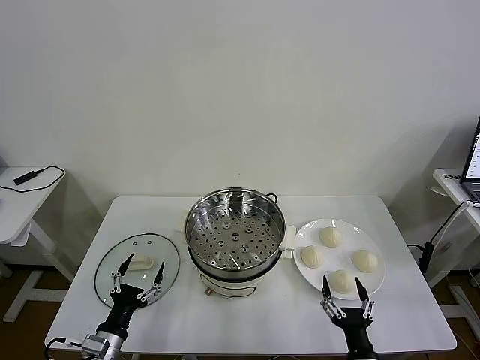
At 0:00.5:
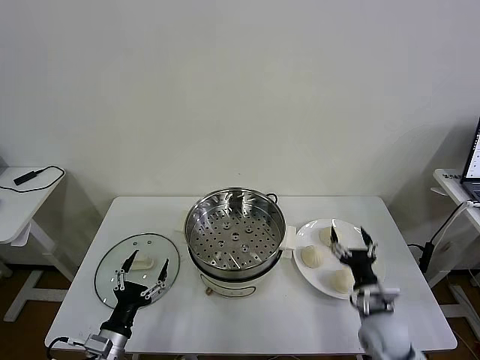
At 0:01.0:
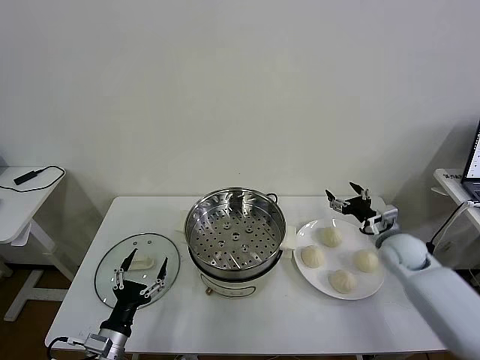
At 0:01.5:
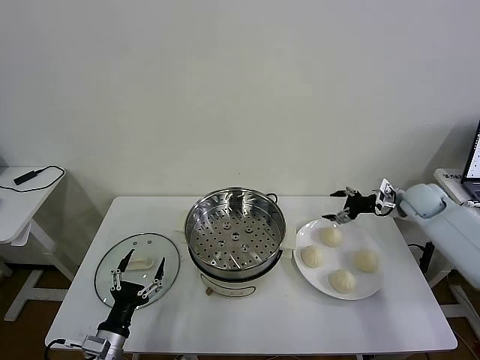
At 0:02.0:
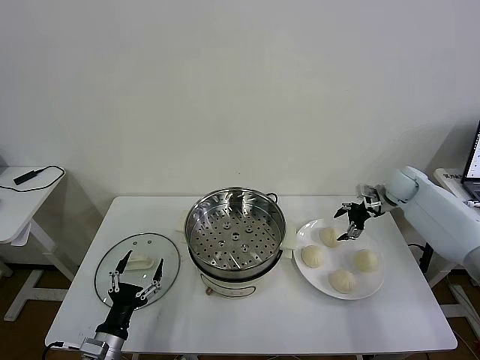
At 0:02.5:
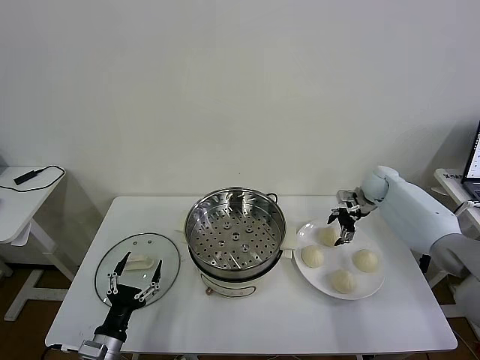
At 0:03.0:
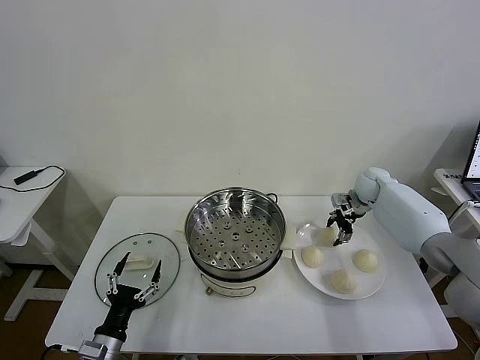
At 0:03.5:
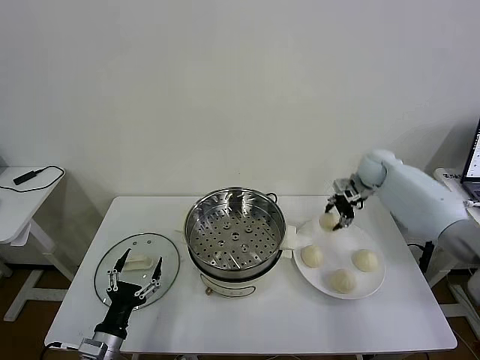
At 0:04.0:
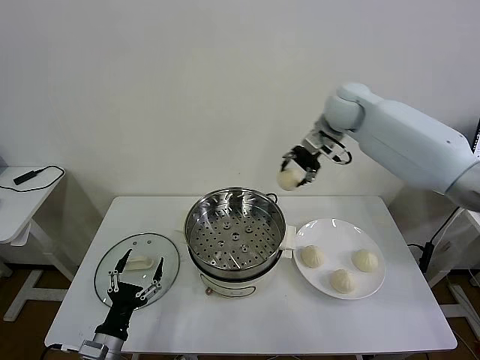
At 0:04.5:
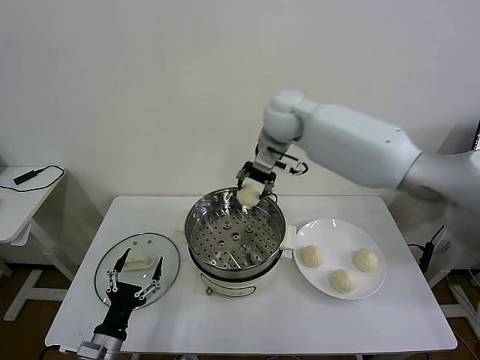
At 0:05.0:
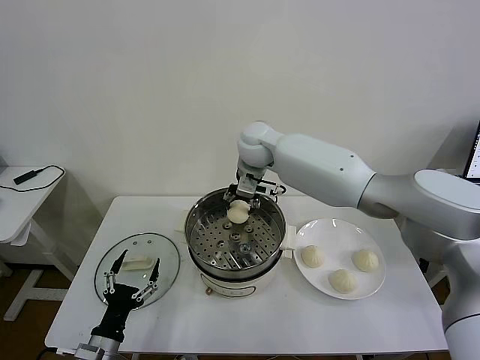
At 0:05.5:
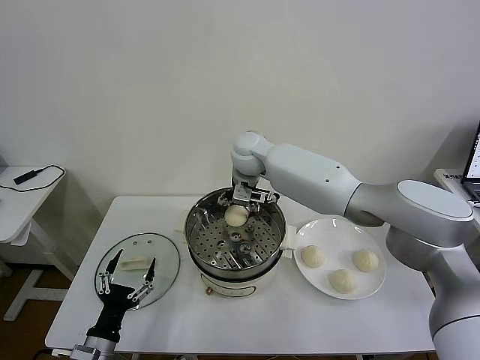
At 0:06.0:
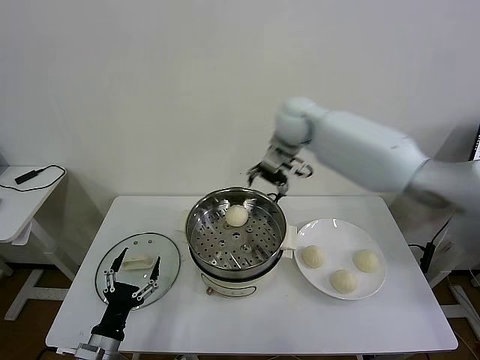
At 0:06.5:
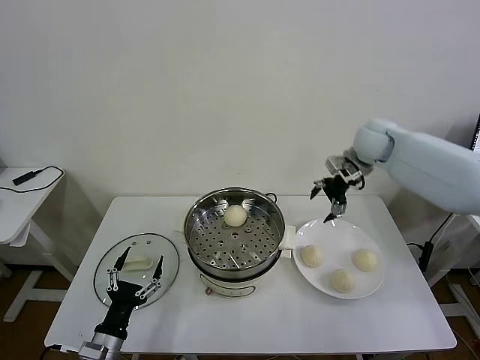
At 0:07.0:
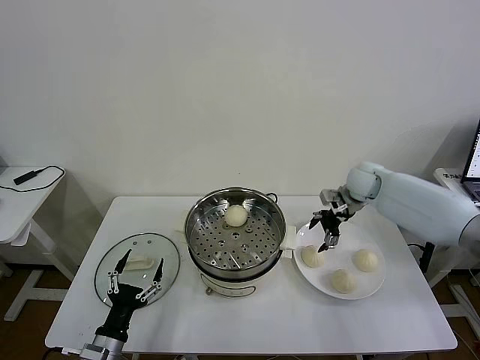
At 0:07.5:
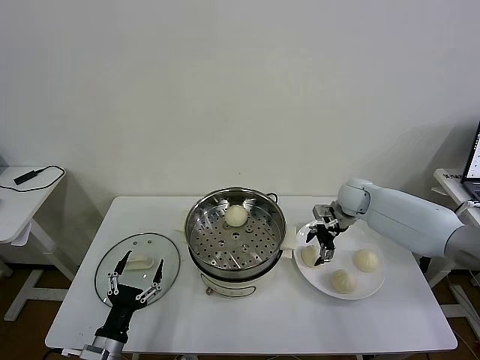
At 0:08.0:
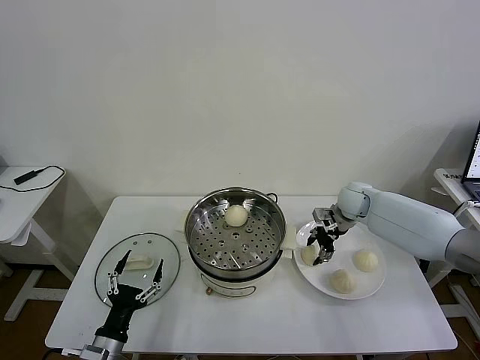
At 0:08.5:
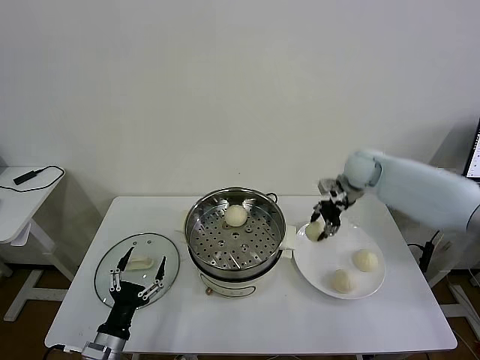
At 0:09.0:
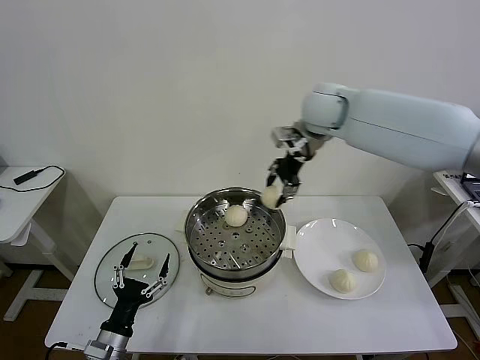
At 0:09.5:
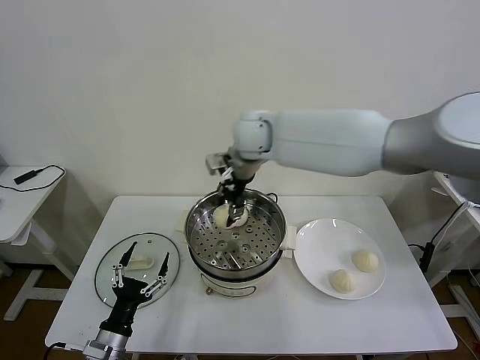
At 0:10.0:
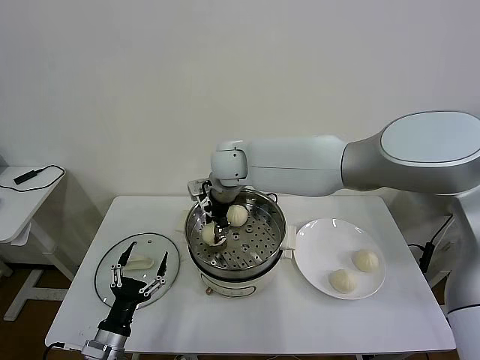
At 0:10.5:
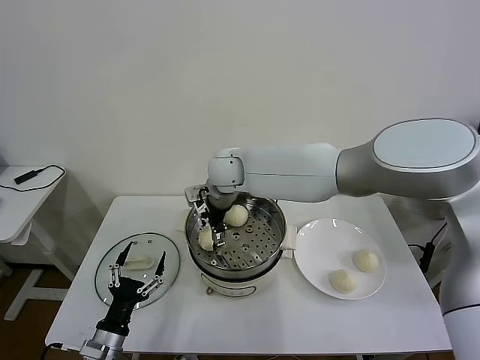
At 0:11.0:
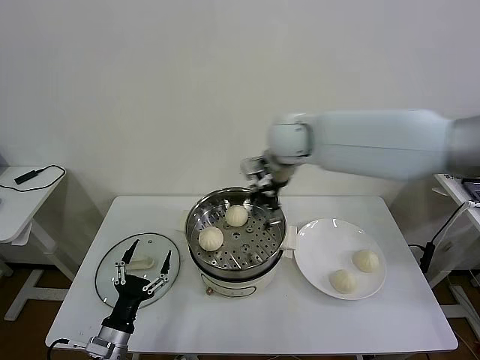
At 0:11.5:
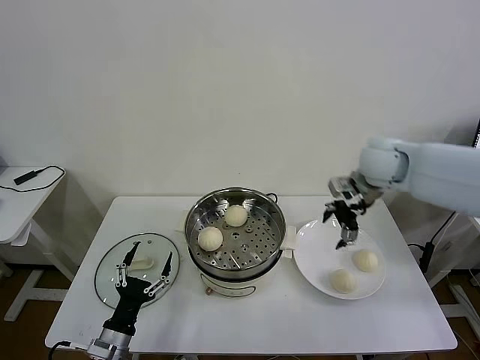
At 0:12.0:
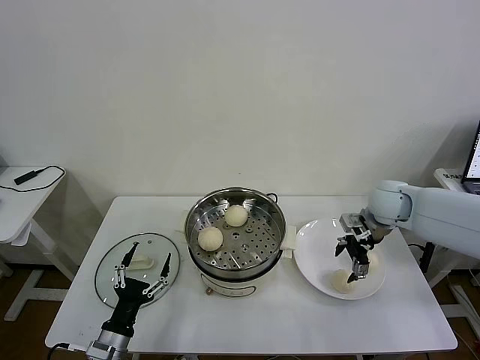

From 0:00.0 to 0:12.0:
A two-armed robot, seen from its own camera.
Task of the whole recording: take steamed baozi put them in steamer then cover it.
Step, from 0:00.0 to 0:03.0: Grasp the baozi in the plate with right gripper.
Step, from 0:03.5 to 0:05.5: Place the baozi on the steamer with right gripper.
Step, from 0:06.0 to 0:08.0: Grasp the baozi in the plate with right gripper.
Step, from 0:08.5 to 0:10.5: Place the baozi on the steamer with right gripper.
From 0:02.0 to 0:04.0: The right gripper shifts approximately 30 cm to the left and upward, and closes up.
From 0:04.0 to 0:06.0: The right gripper reaches approximately 15 cm to the left, then returns, and opens up.
From 0:06.0 to 0:08.0: The right gripper travels downward and to the right by approximately 25 cm, and closes its fingers.
From 0:08.0 to 0:10.0: The right gripper heads to the left and upward, covering approximately 35 cm.
From 0:10.0 to 0:12.0: The right gripper moves to the right, approximately 35 cm, and opens.

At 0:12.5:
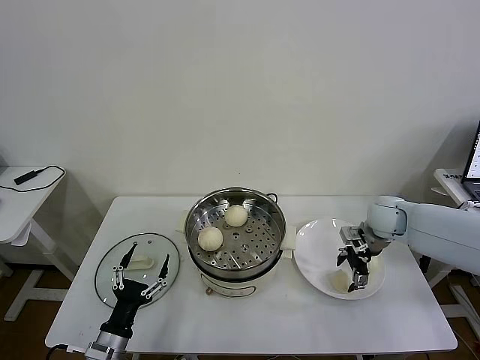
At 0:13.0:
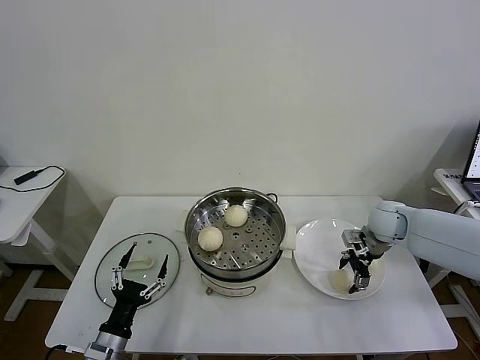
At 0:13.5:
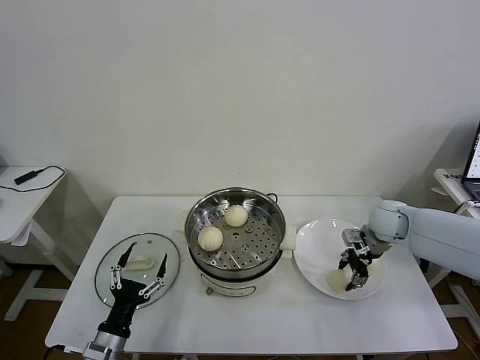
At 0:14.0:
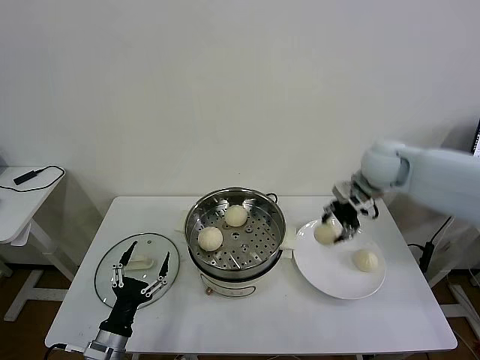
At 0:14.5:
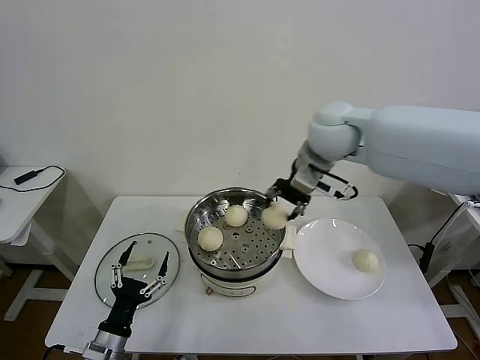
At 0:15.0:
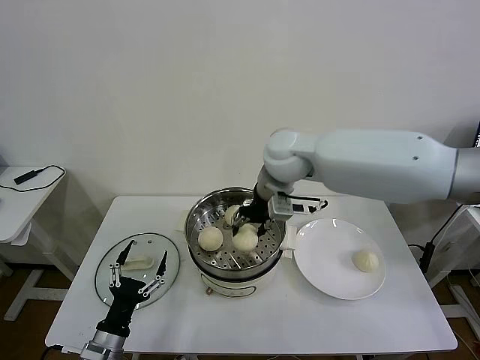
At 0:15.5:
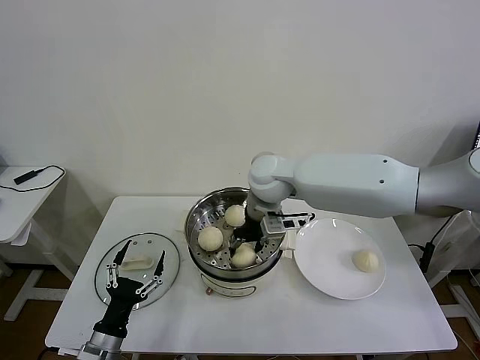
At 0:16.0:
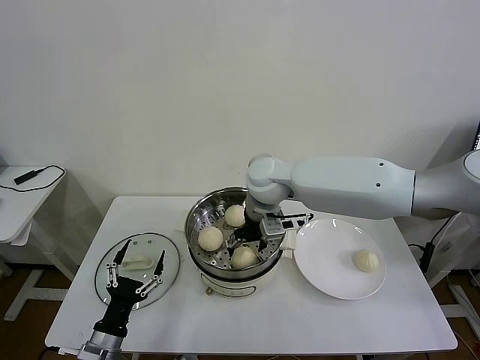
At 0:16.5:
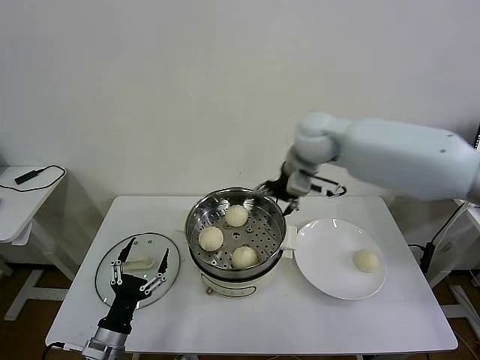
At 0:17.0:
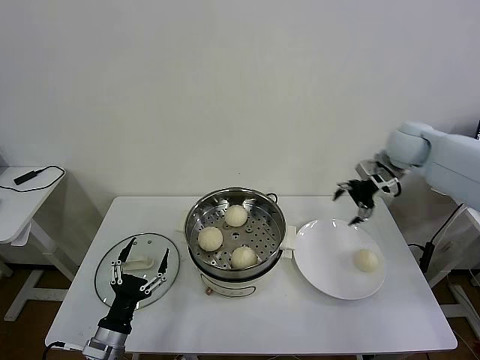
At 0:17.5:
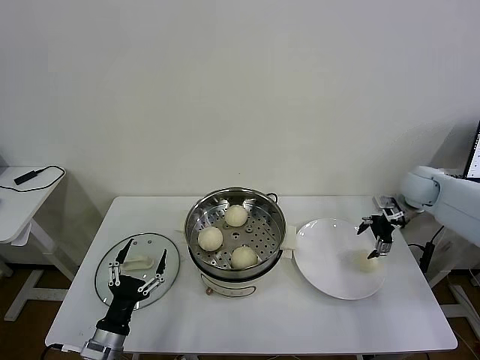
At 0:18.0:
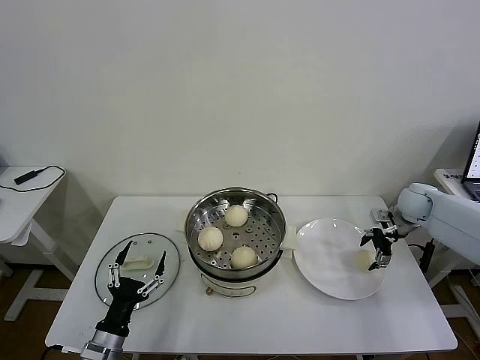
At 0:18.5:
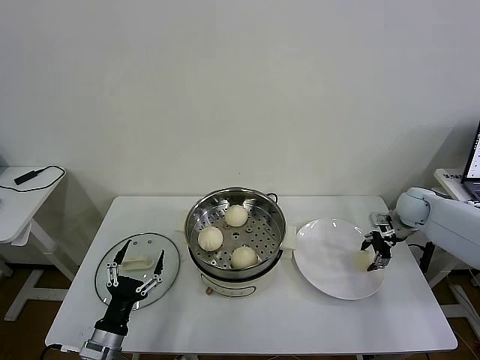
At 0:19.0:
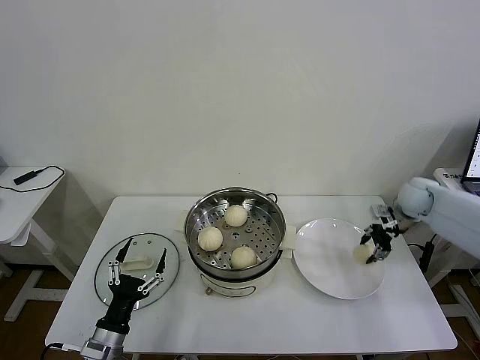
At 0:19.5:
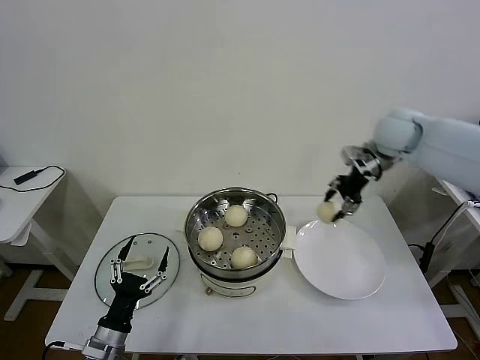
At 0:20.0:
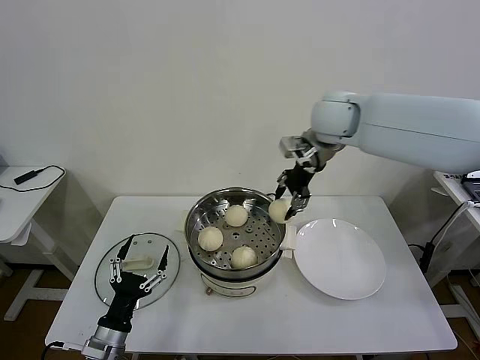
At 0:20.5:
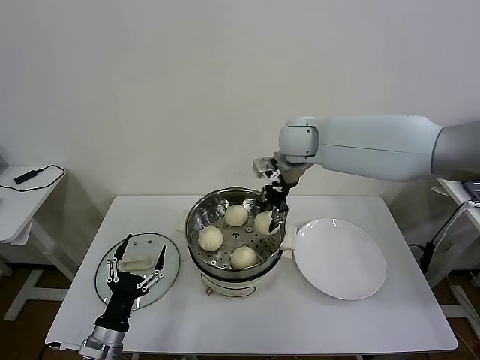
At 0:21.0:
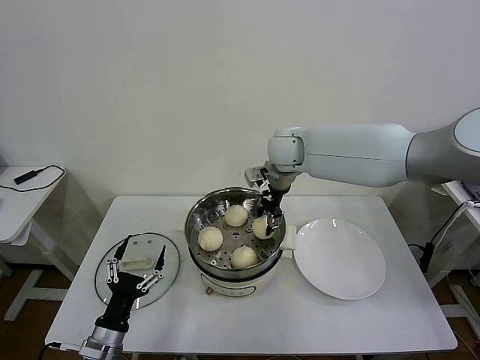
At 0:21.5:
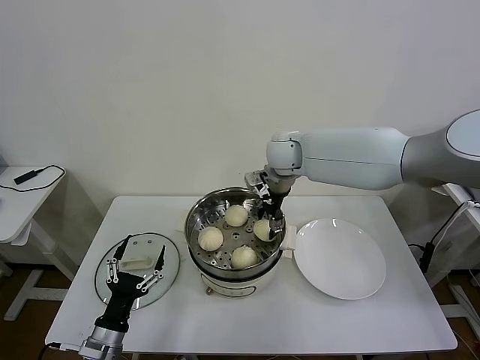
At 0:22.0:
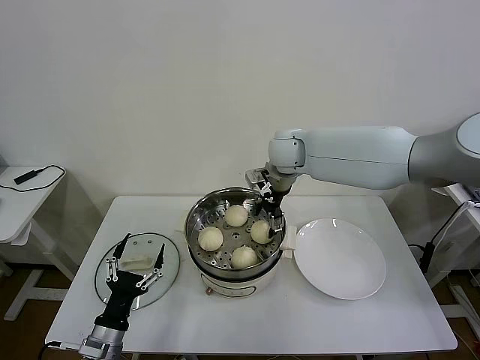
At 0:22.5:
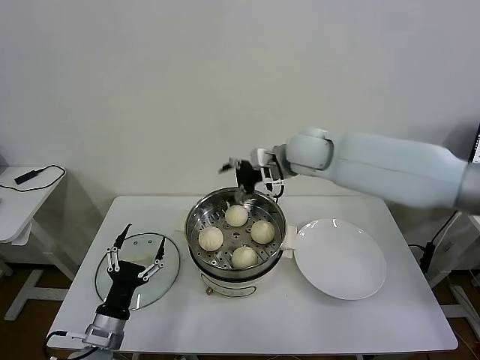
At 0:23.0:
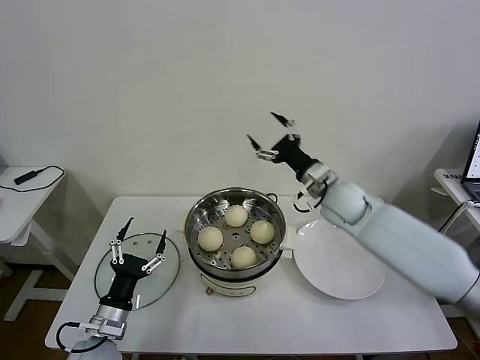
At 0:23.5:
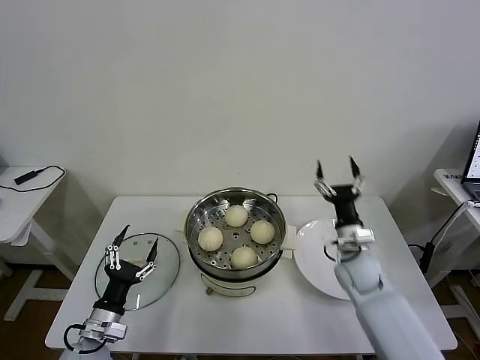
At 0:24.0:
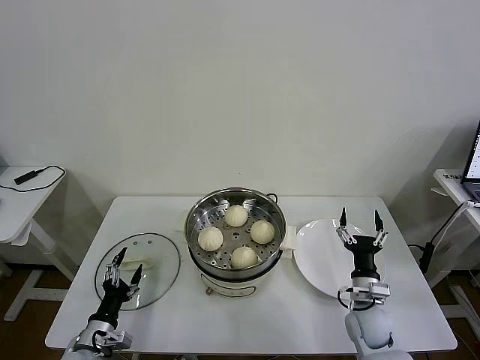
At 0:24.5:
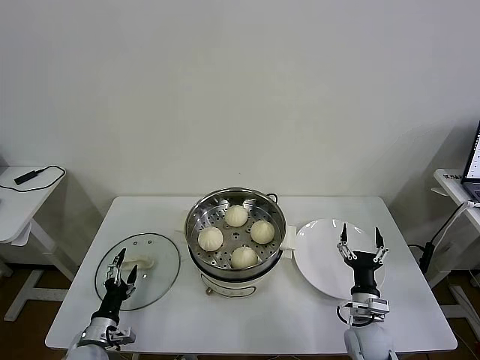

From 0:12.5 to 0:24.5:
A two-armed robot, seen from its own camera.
Task of the whole recording: take steamed baozi put them in steamer then cover it.
Step, from 0:13.5 to 0:15.5: Place the baozi on the steamer with right gripper.
Step, from 0:16.0 to 0:18.5: Grasp the baozi in the plate with right gripper.
Step, from 0:19.0 to 0:21.5: Place the baozi on the steamer with right gripper.
From 0:12.5 to 0:14.5: The right gripper travels upward and to the left by some 30 cm, and closes its fingers.
From 0:14.5 to 0:16.5: The right gripper moves roughly 10 cm to the left and comes back, and opens.
From 0:16.5 to 0:18.5: The right gripper goes about 35 cm to the right and downward, and closes up.
From 0:18.5 to 0:20.5: The right gripper shifts some 40 cm to the left and upward, and closes its fingers.
From 0:20.5 to 0:22.5: The right gripper opens.
From 0:22.5 to 0:24.5: The right gripper heads downward, backward and to the right, covering approximately 50 cm. The left gripper shifts about 10 cm downward and to the left.

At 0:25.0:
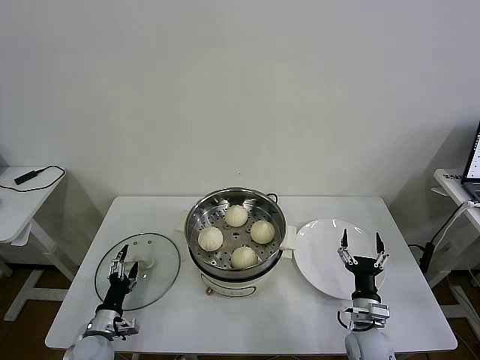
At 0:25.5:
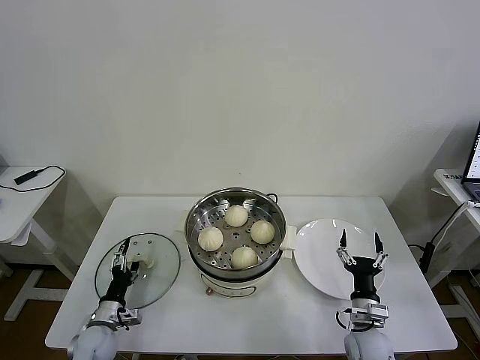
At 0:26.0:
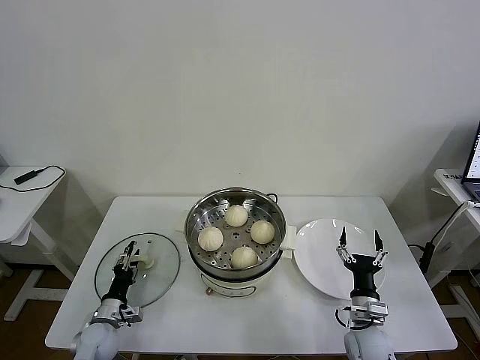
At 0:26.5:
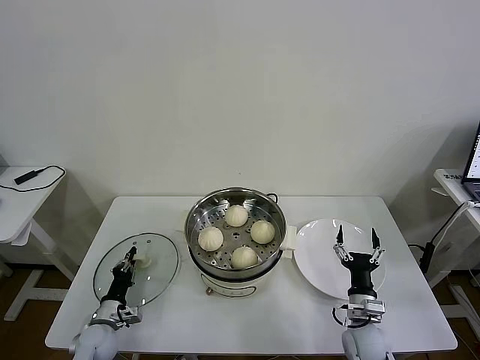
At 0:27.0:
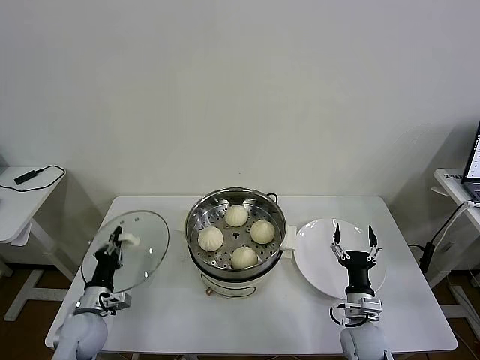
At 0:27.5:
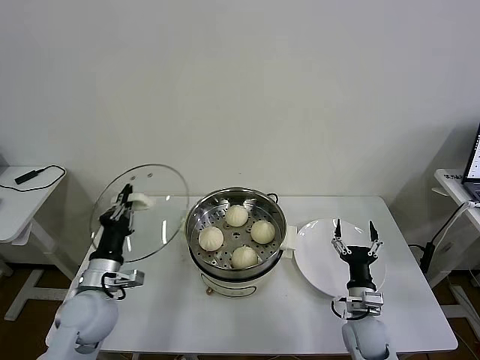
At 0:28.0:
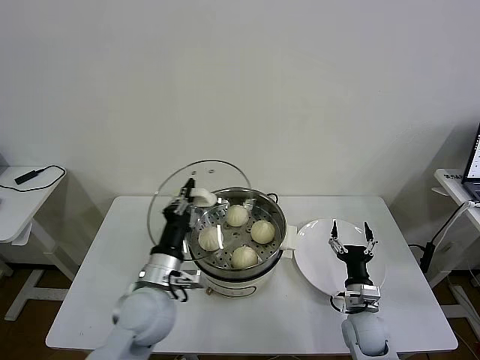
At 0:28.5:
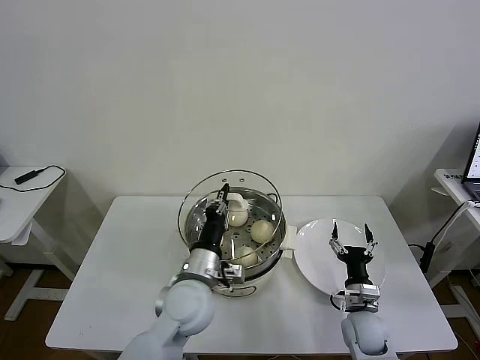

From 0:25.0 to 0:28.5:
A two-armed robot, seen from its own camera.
Task of the whole recording: take steamed baozi put them in steamer then cover it.
From 0:25.0 to 0:27.0: The left gripper changes place by approximately 5 cm, and closes.
From 0:27.0 to 0:28.5: The left gripper shifts some 30 cm to the right and upward.
